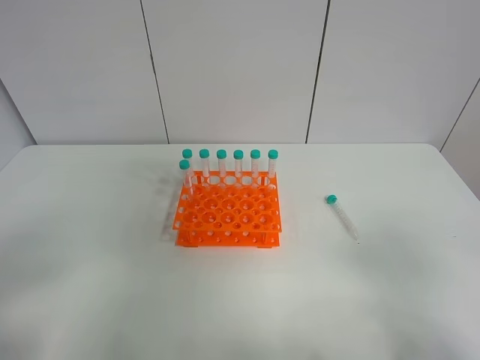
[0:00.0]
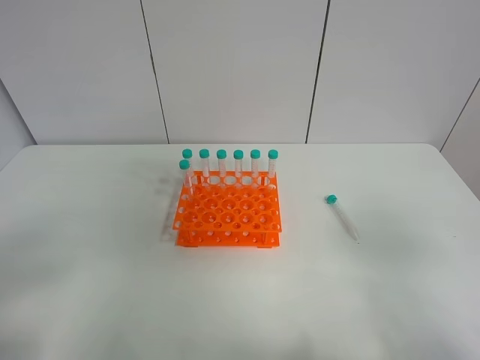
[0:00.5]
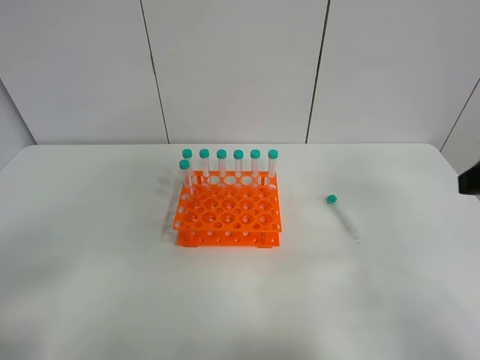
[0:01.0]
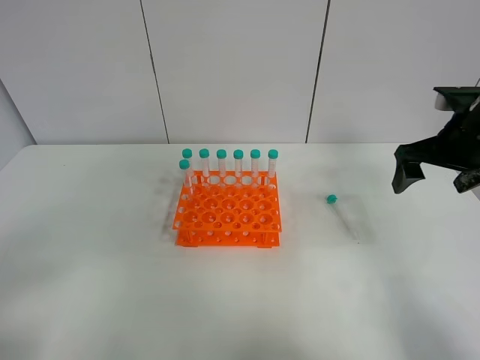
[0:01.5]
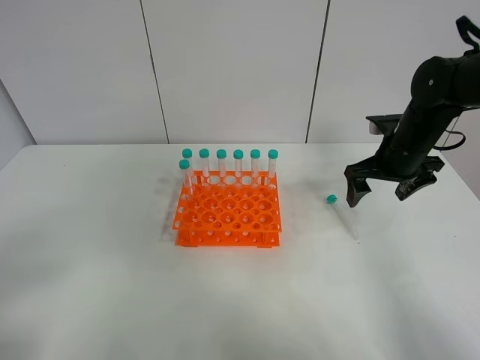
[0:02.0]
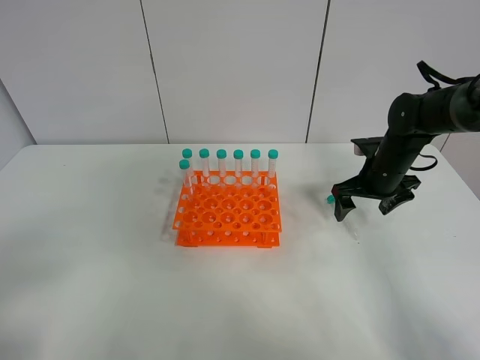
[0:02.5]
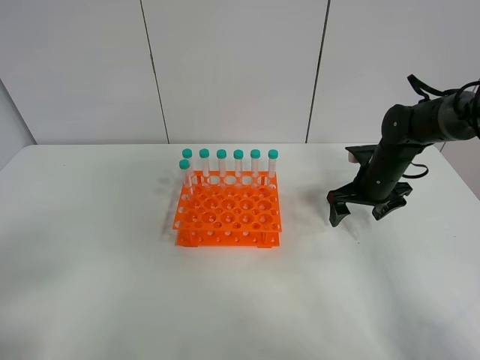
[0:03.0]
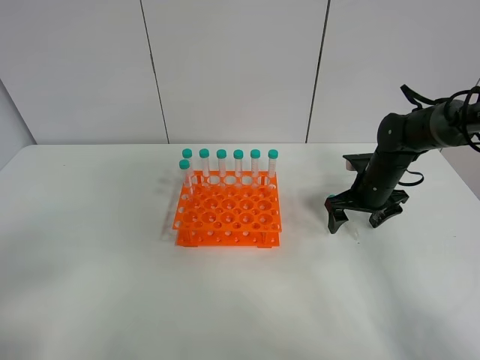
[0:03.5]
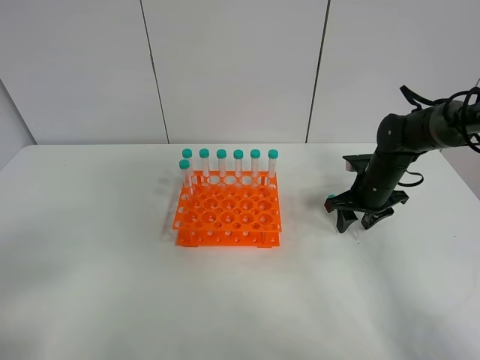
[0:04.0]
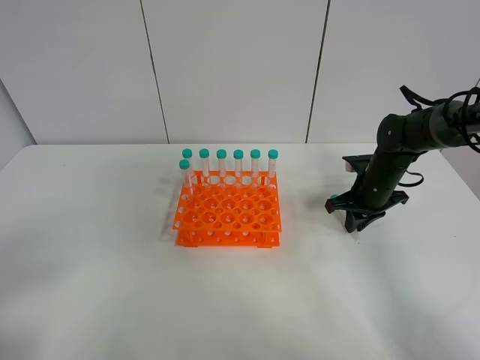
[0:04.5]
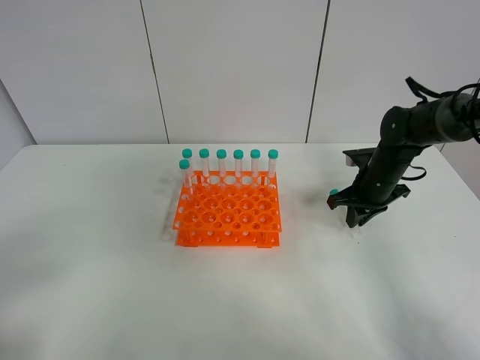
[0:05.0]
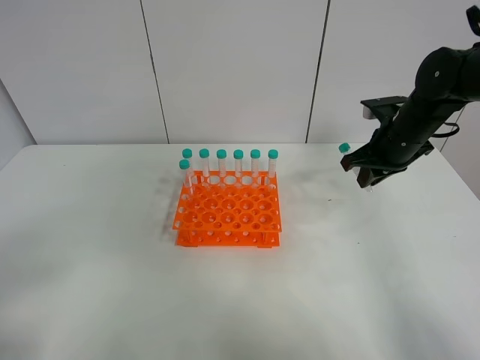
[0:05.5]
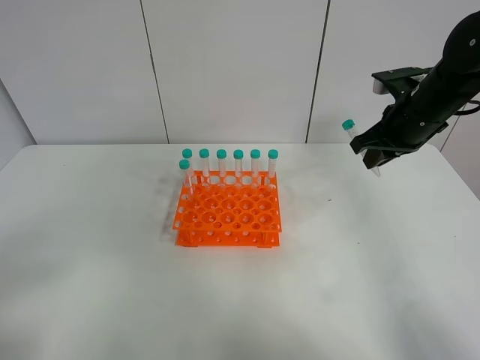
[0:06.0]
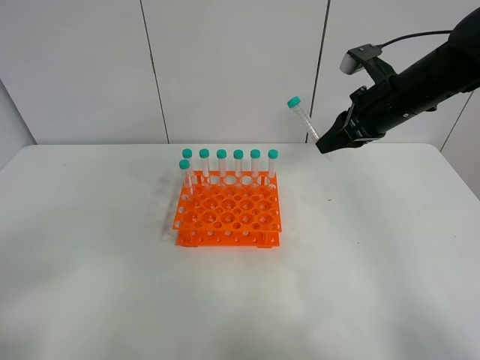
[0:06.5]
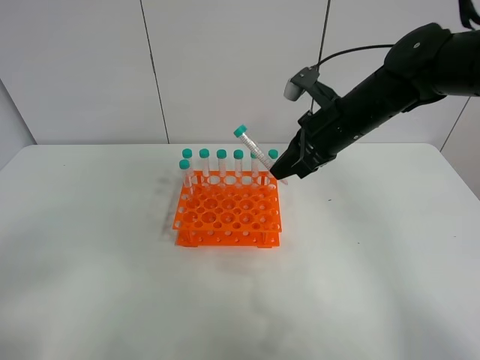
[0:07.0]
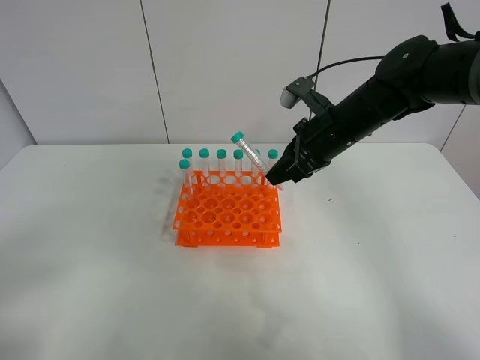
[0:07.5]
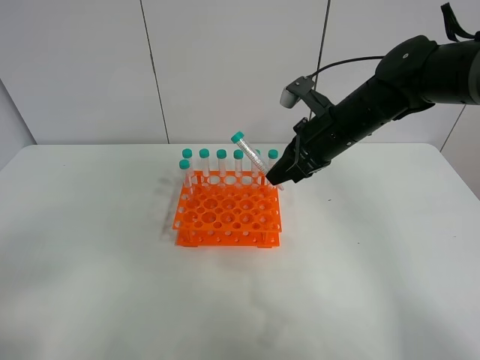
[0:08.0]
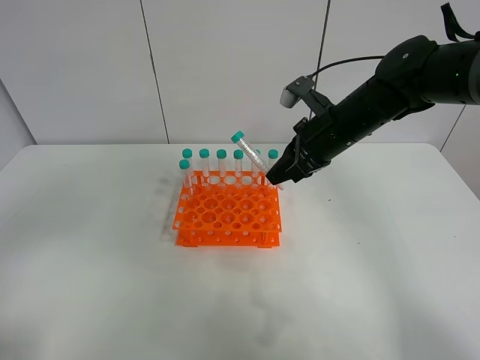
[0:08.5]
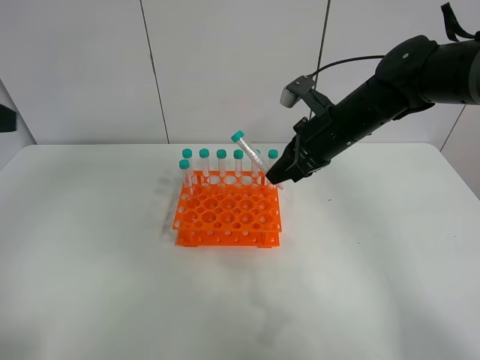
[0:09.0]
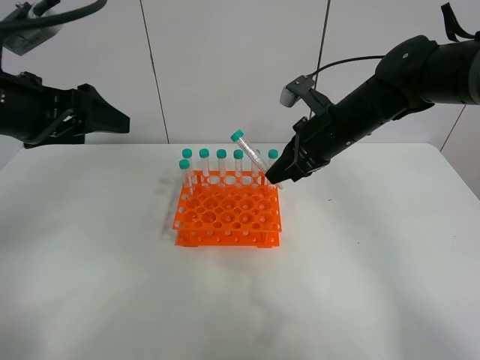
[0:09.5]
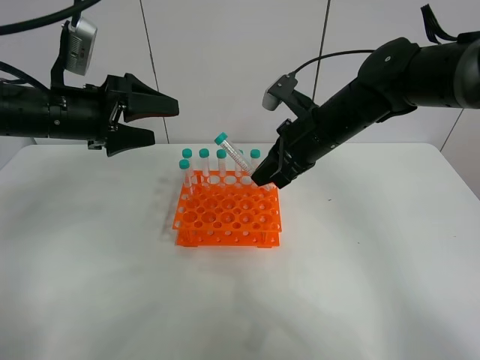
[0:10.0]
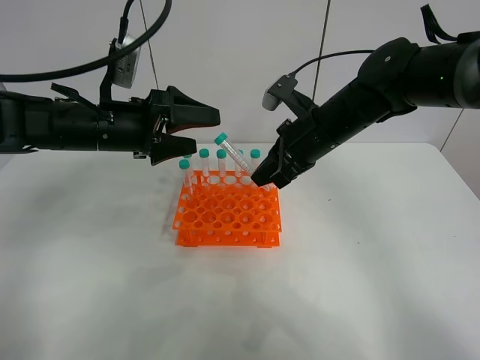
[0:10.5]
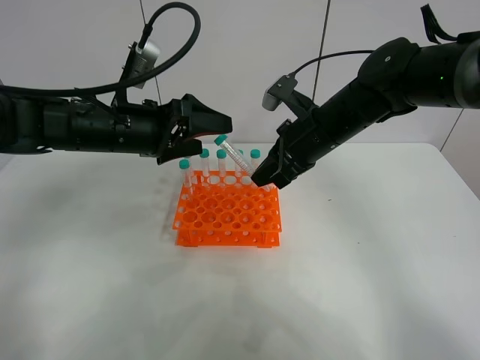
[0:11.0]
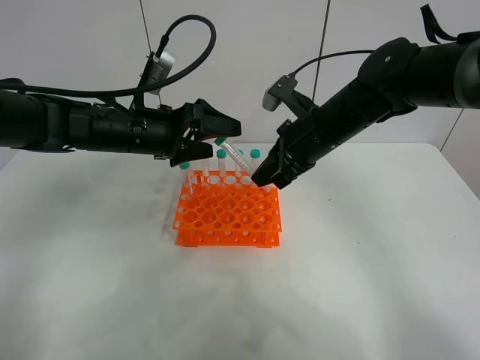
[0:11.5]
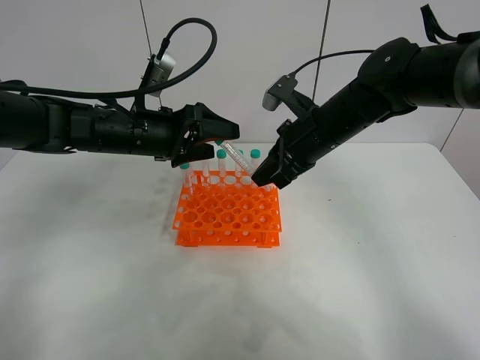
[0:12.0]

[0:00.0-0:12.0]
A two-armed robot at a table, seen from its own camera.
Task of the whole recording: Put the test tube on the table back onto the test tube rack.
Step, 0.0 to 5.5 s: Pick up the test tube with the right gripper.
0.0 to 2.0 s: The right gripper is displaced forward by approximately 35 cm.
2.0 to 4.0 s: The right gripper heads downward, covering about 10 cm, and closes its fingers.
4.0 to 6.0 s: The right gripper is displaced upward by approximately 15 cm, and closes its fingers.
6.0 to 8.0 s: The right gripper moves to the left, about 10 cm.
8.0 to 10.0 s: The left gripper heads forward, covering approximately 35 cm.
10.0 to 12.0 s: The left gripper heads to the right, covering roughly 10 cm.

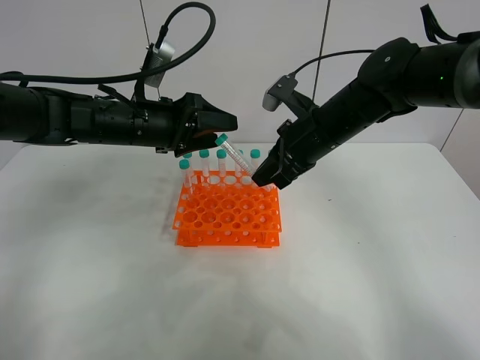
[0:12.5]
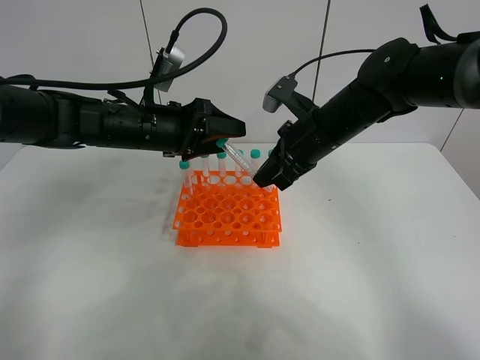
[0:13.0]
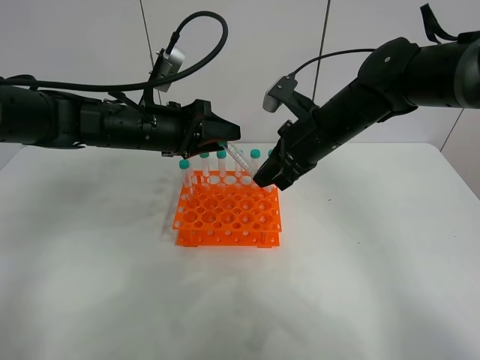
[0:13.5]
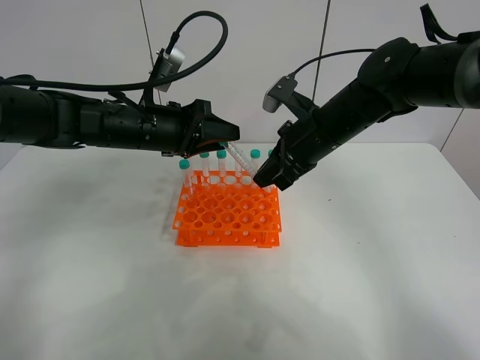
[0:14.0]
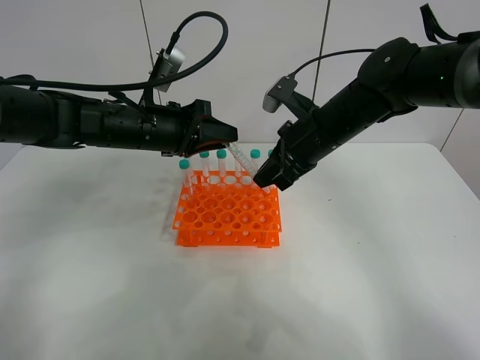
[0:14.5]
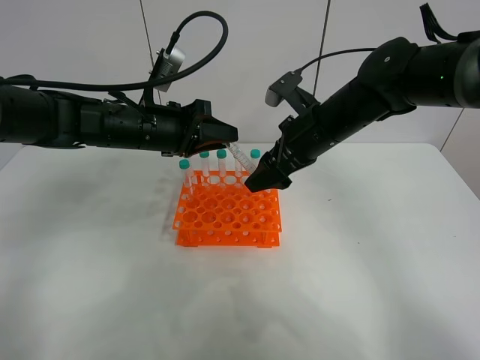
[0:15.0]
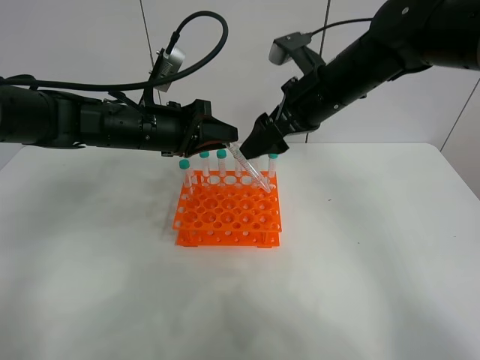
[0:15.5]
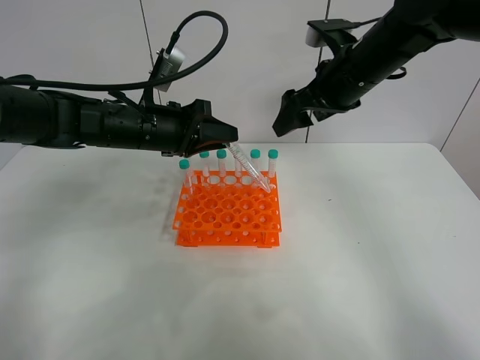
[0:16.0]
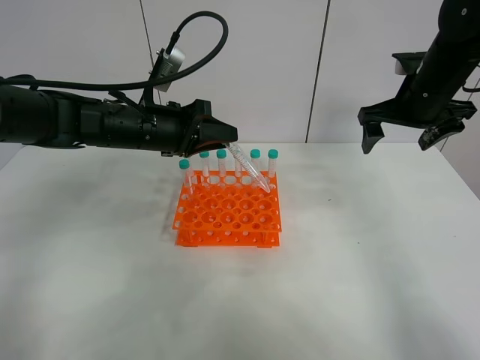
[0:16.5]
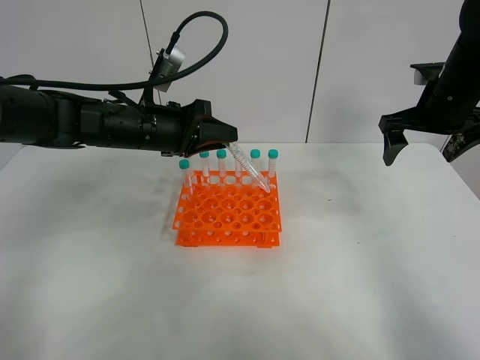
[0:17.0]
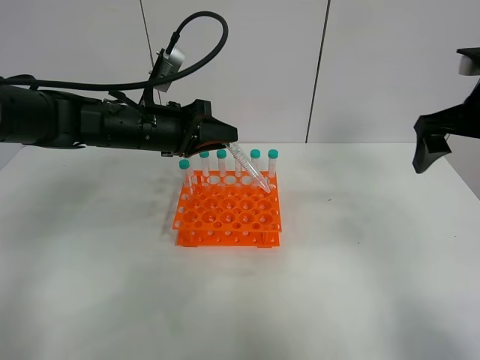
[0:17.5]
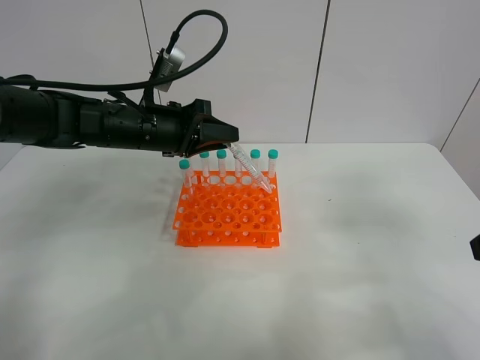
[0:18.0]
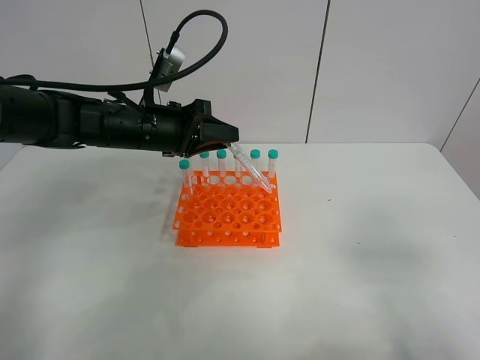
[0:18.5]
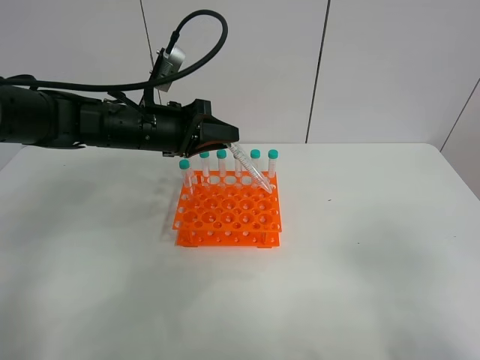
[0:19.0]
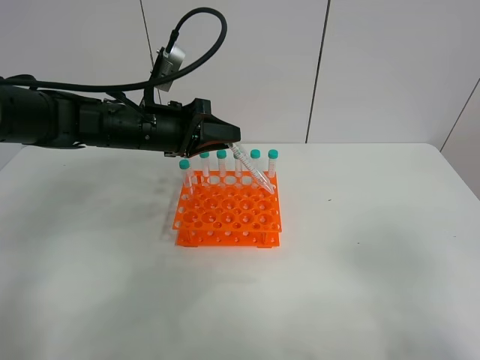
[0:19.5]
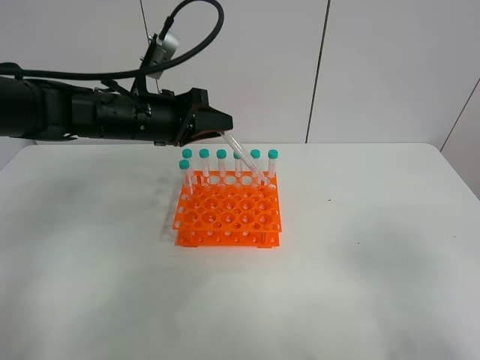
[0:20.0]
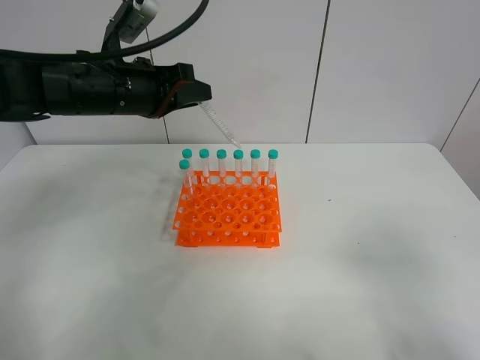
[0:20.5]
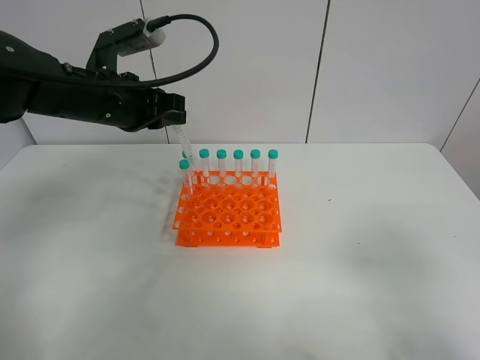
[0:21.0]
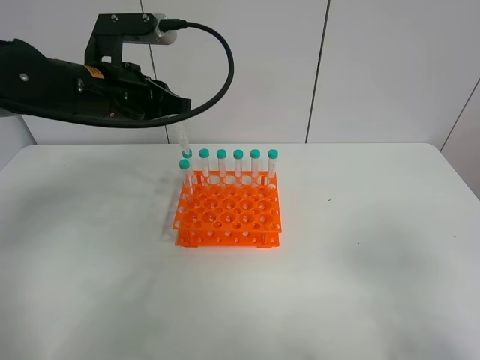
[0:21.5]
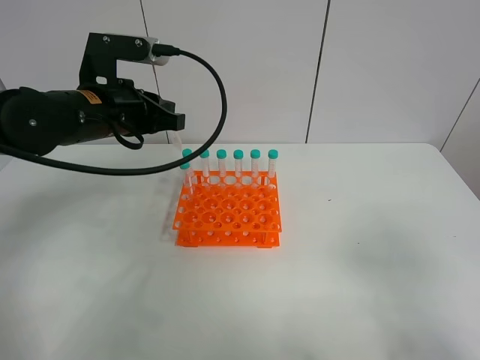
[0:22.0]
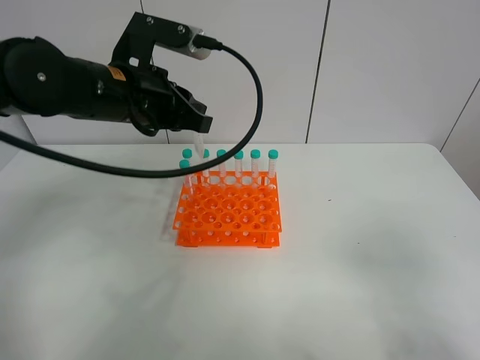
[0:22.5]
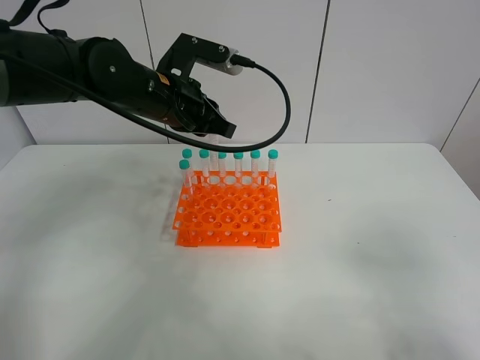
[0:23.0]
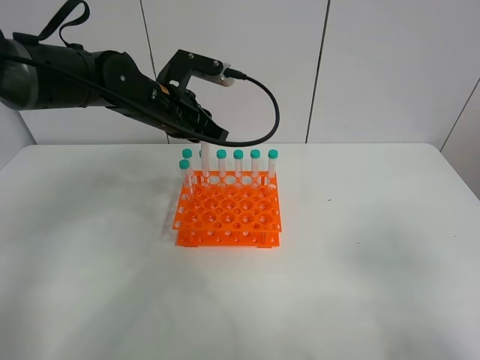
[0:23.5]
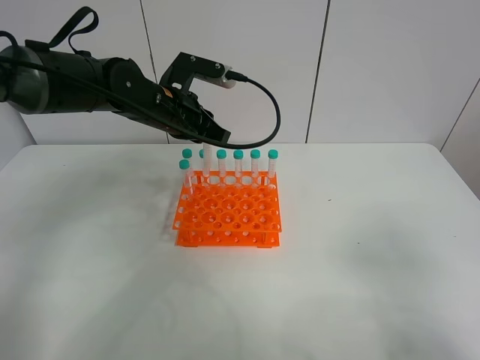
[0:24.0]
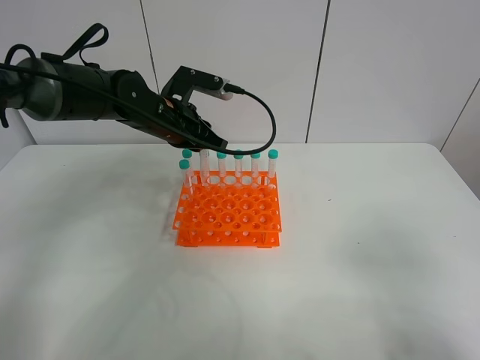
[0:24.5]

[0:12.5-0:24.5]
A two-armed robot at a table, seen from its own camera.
Task of the whole recording: Put the test tube on the table back onto the test tube rack.
Step, 12.5 to 15.5 s: Move the test tube from the right gripper to the left gripper.
12.5 to 14.5 s: The left gripper closes its fingers.
14.5 to 16.5 s: The right gripper travels to the right by approximately 15 cm, and opens its fingers.
16.5 to 18.5 s: The right gripper travels backward by some 35 cm.
18.5 to 20.5 s: The left gripper shifts some 5 cm upward.
22.5 to 24.5 s: The left gripper shifts about 10 cm forward and downward.

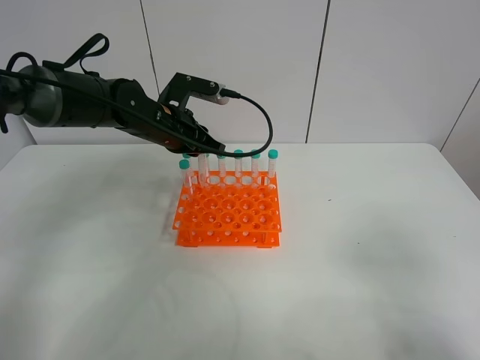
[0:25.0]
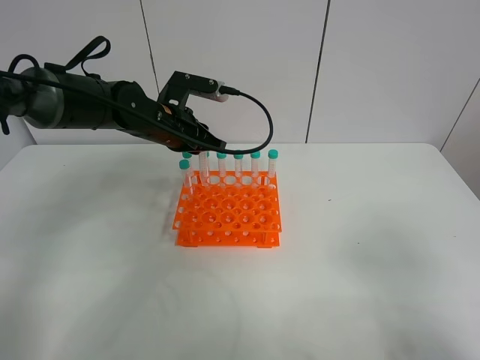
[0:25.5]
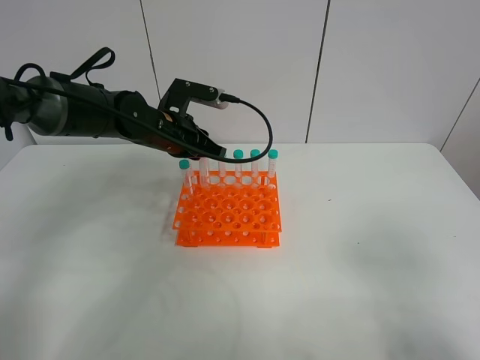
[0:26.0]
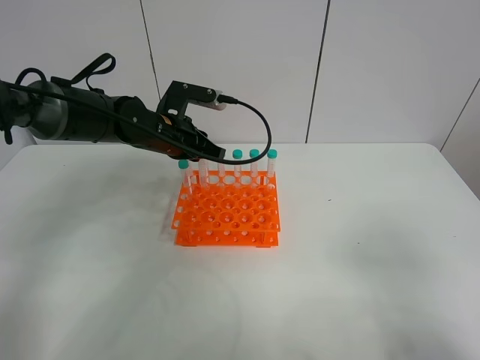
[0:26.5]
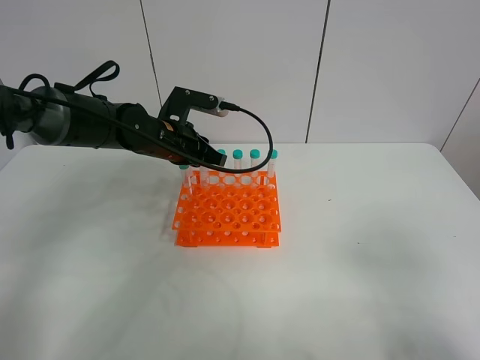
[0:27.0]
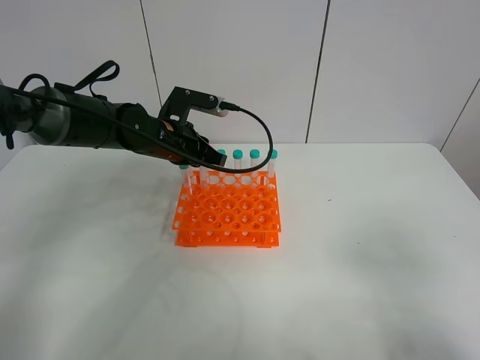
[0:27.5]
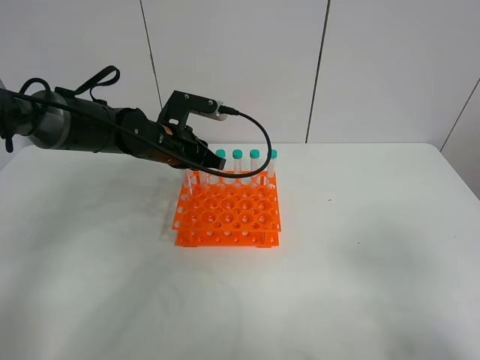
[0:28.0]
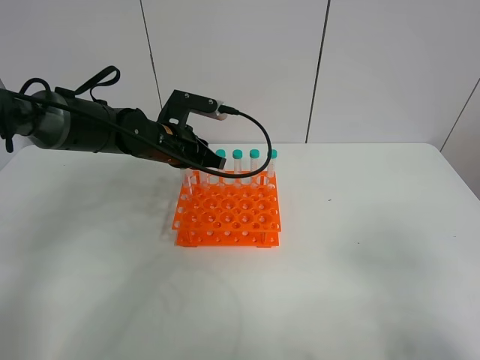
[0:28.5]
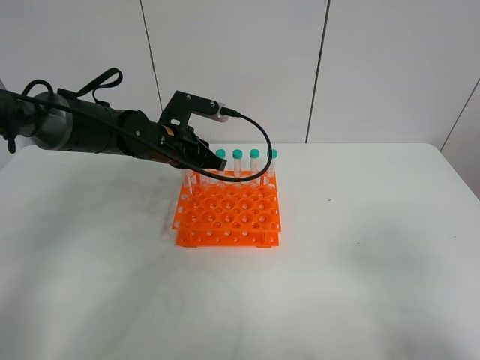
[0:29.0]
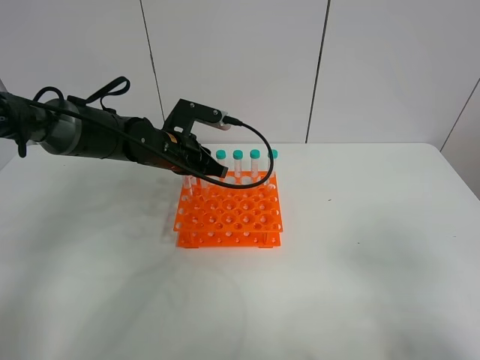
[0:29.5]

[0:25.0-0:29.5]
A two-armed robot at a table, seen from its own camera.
Task of the whole recording: Put the test tube on the table back onto the test tube rack.
25.0 to 29.5 s: The grippers move only a little.
